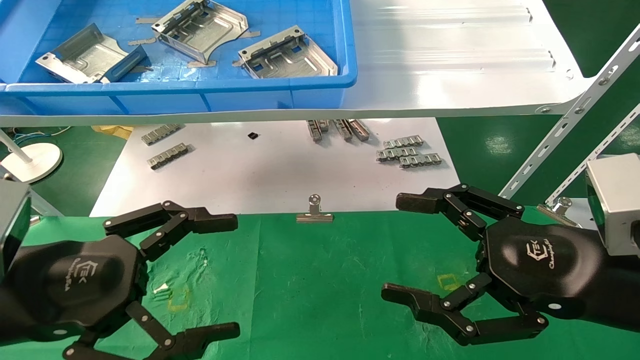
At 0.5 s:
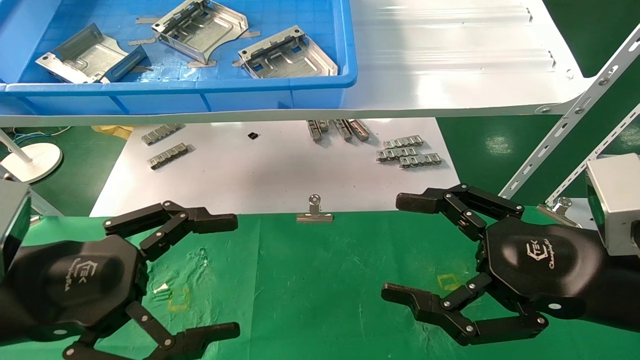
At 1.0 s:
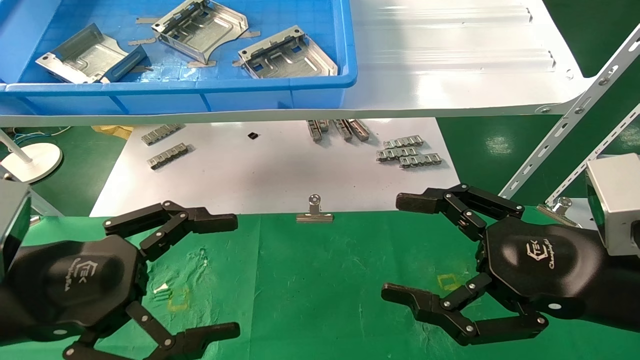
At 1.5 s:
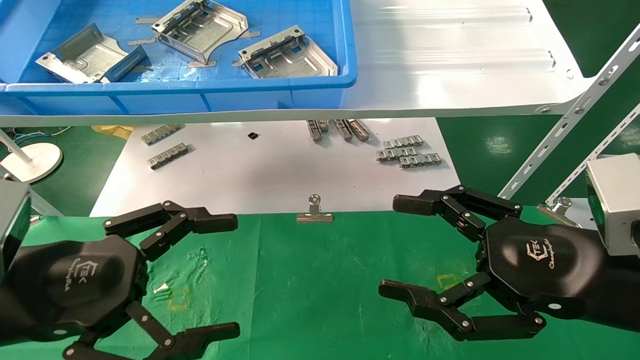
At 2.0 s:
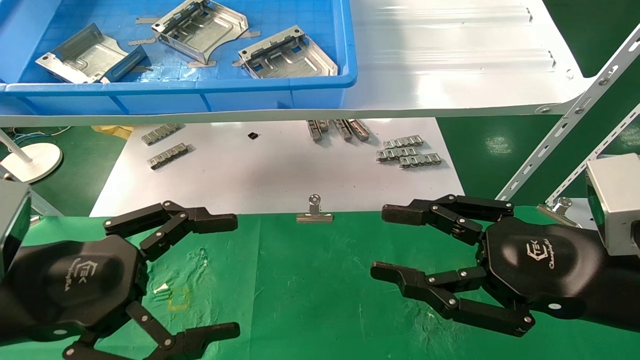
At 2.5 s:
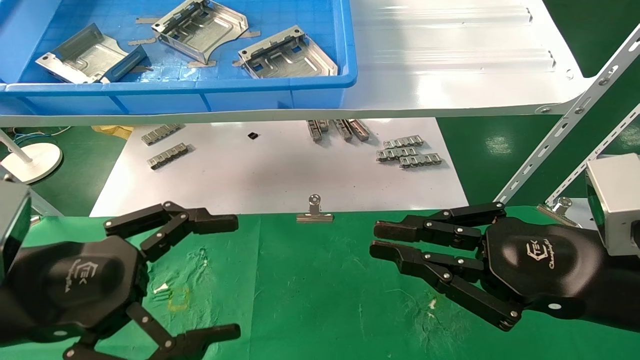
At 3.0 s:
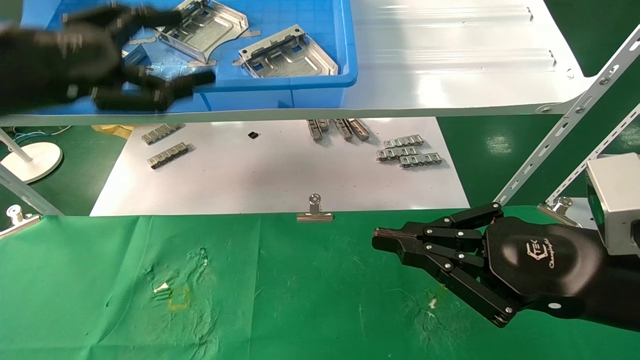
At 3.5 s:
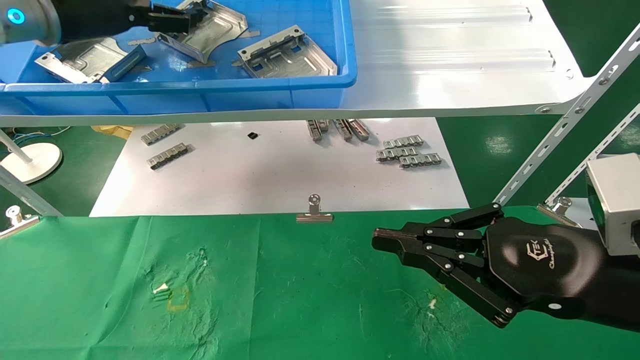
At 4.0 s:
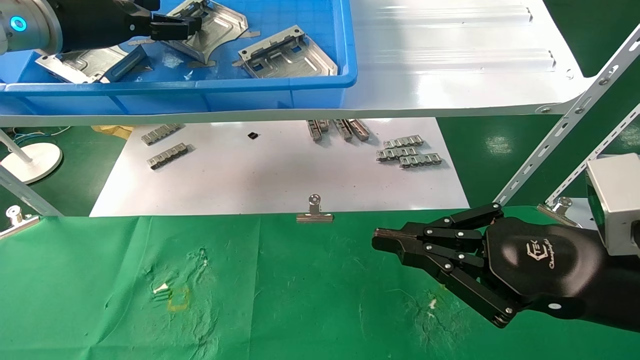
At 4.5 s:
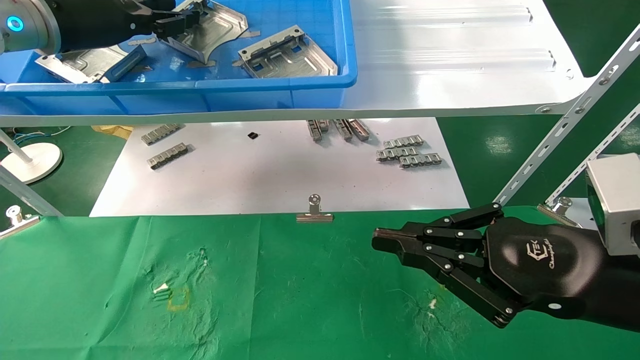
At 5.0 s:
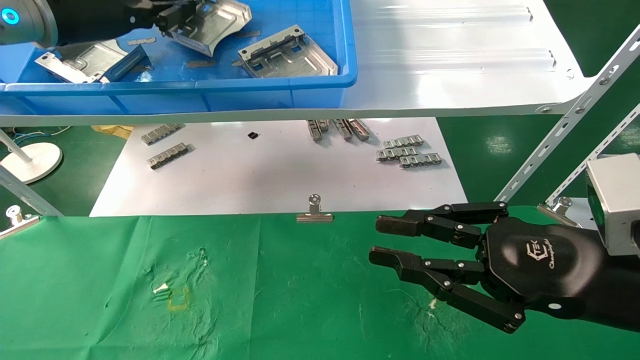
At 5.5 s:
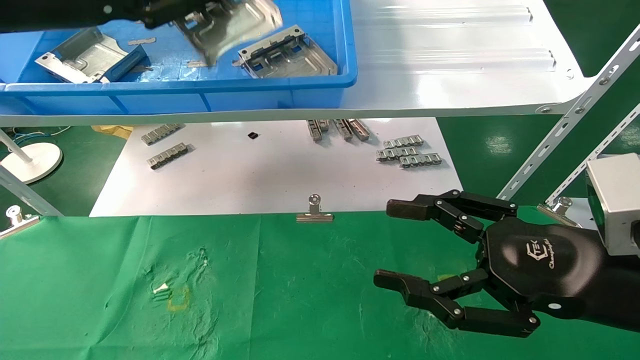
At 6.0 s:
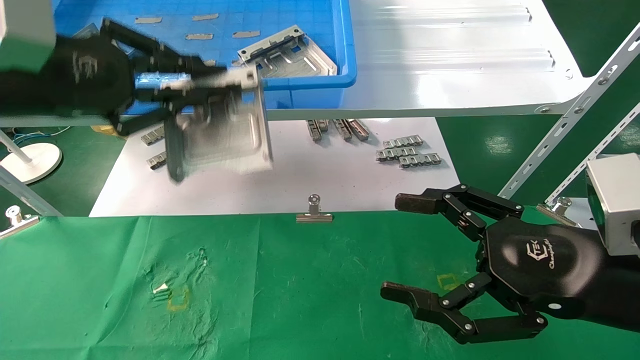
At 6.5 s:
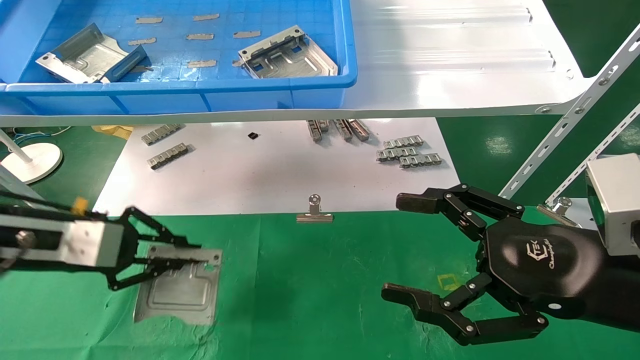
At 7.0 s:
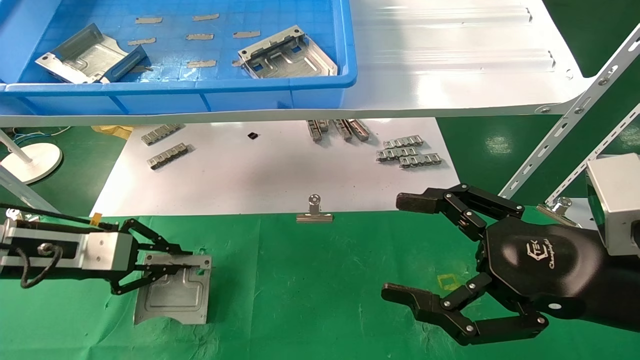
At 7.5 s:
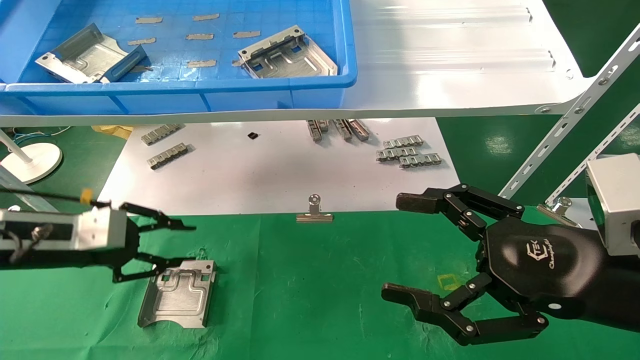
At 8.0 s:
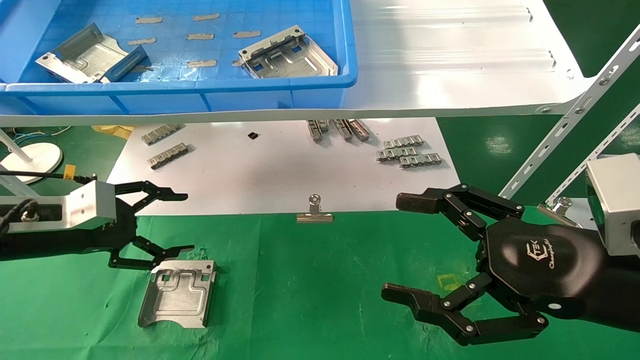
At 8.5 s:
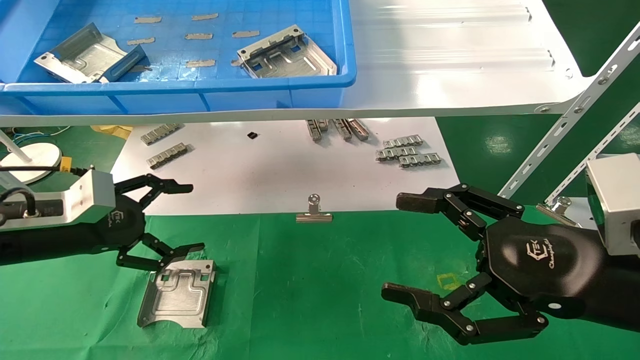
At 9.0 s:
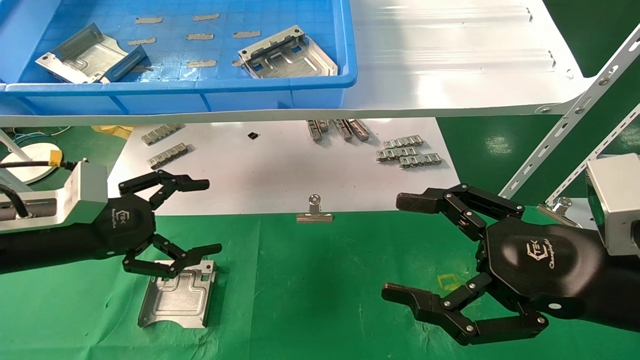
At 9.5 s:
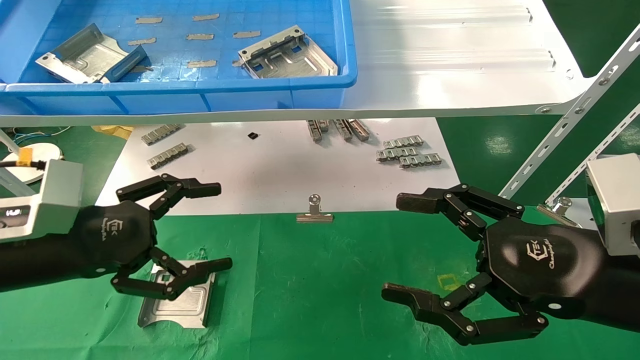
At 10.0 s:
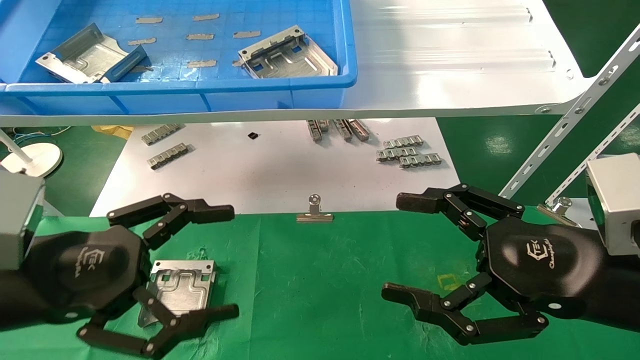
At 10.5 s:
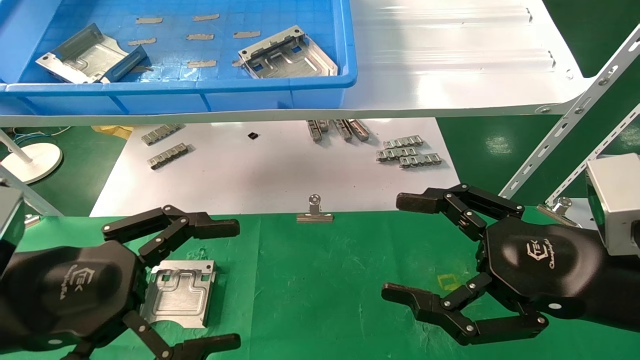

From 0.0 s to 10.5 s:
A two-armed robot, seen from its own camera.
Task of the whole recording: use the mechanical arm to pick up the parts and place them on the table.
Step, from 3.0 s to 4.5 s: Pick up the hard drive bracket from the feeding area.
Step, from 5.0 s to 7.0 s: Place the hard drive bracket into the box.
From 0.0 s to 2.0 s: The right gripper closes.
From 2.0 s to 4.0 s: The left gripper shifts approximately 30 cm forward and upward, while the right gripper closes its fingers.
From 4.0 s to 6.5 s: The left gripper is displaced downward and backward by about 20 cm, and closes. The right gripper opens.
From 6.5 s to 8.5 s: The left gripper opens.
From 8.5 s to 10.5 s: The left gripper travels backward and to the right by approximately 15 cm.

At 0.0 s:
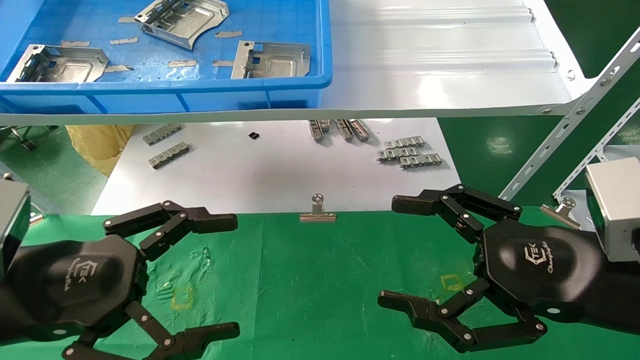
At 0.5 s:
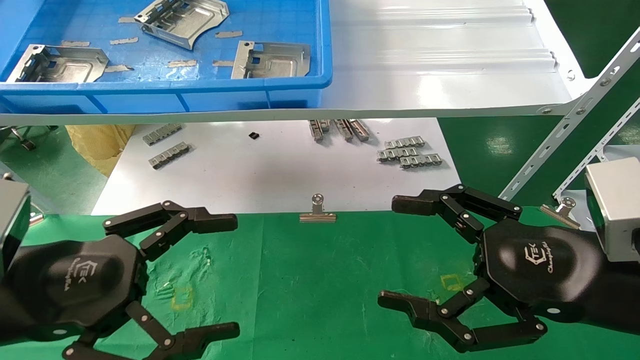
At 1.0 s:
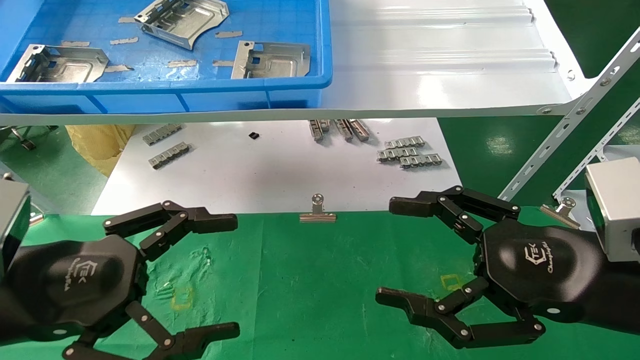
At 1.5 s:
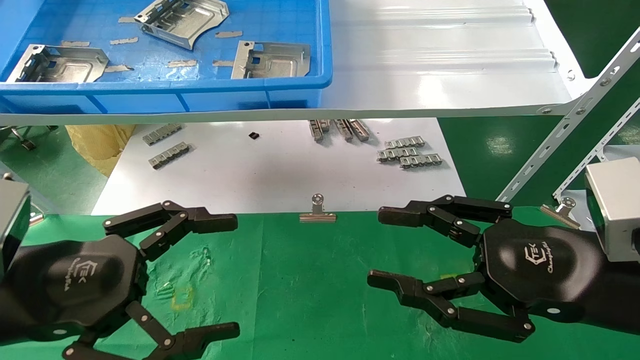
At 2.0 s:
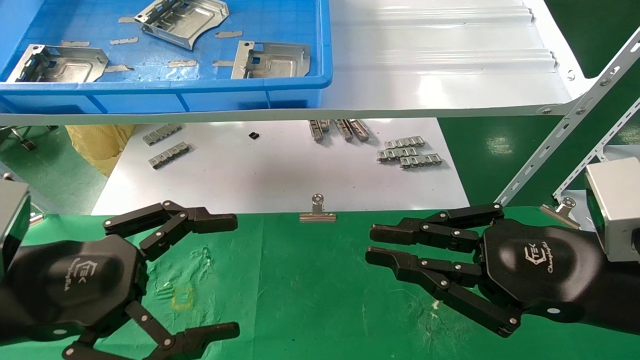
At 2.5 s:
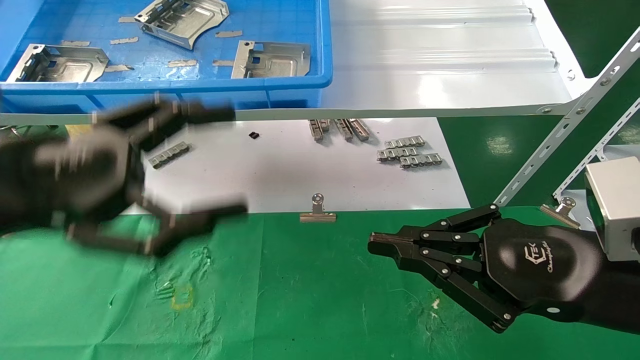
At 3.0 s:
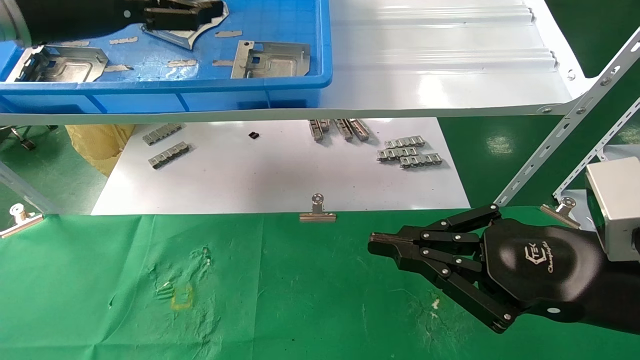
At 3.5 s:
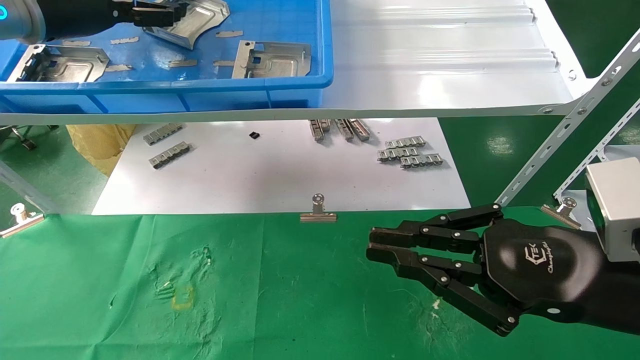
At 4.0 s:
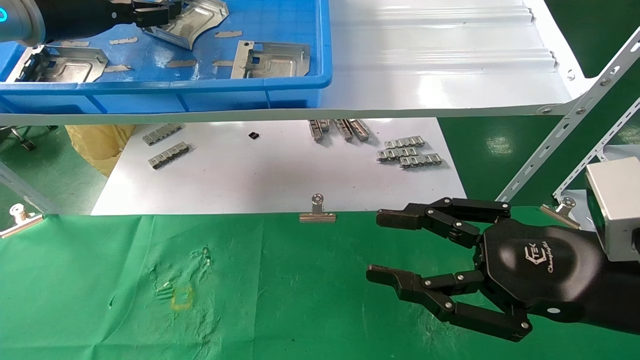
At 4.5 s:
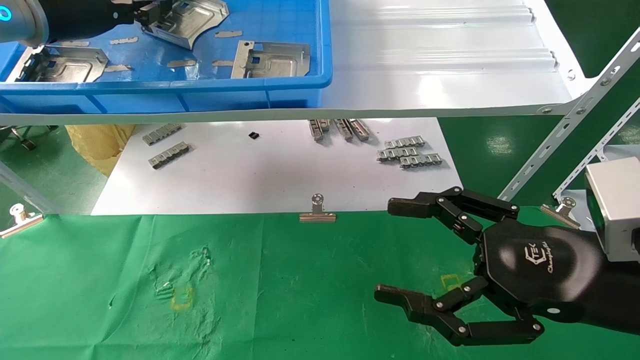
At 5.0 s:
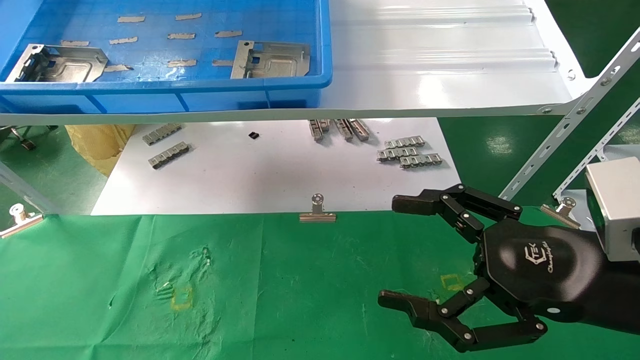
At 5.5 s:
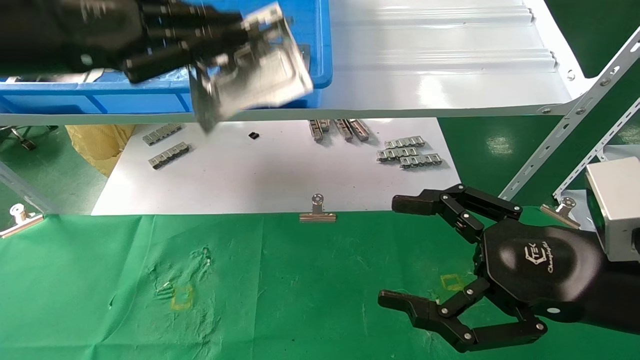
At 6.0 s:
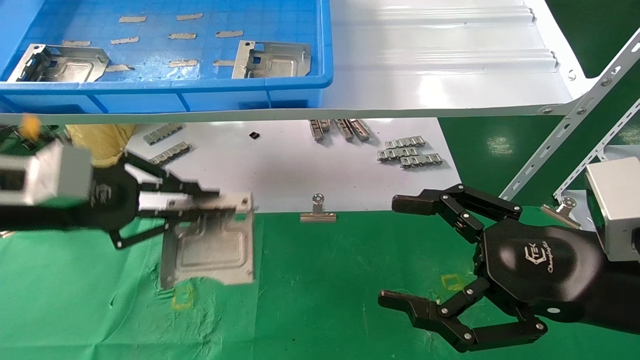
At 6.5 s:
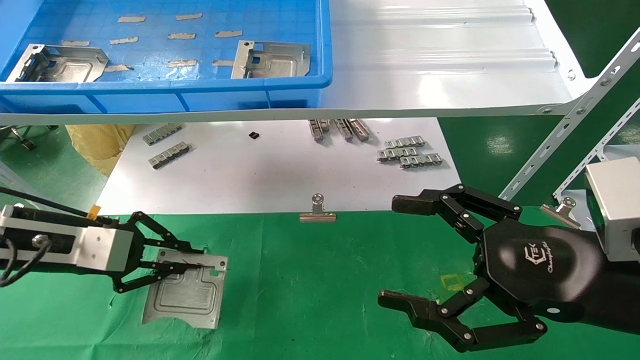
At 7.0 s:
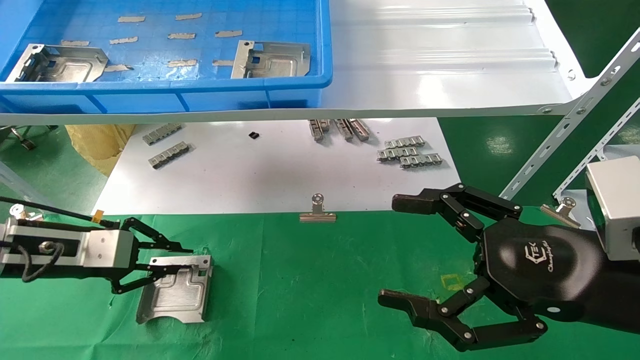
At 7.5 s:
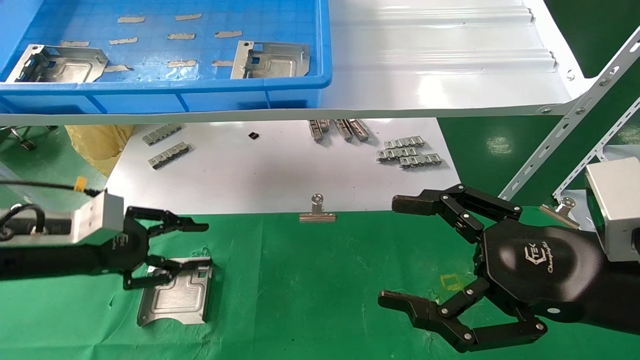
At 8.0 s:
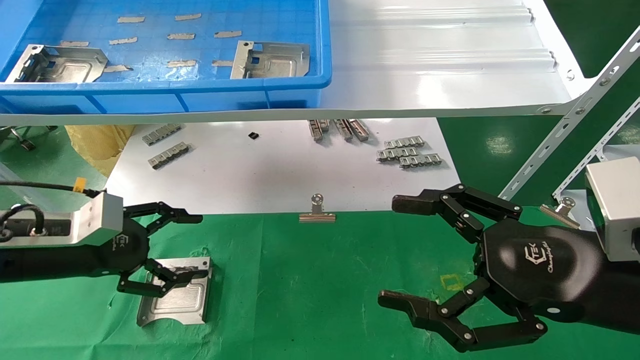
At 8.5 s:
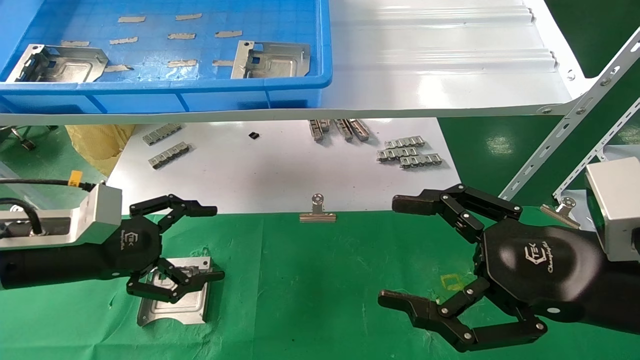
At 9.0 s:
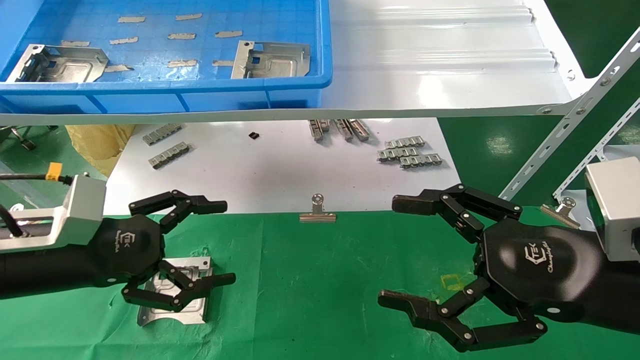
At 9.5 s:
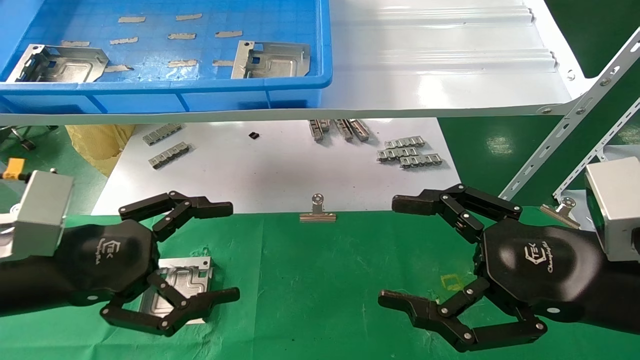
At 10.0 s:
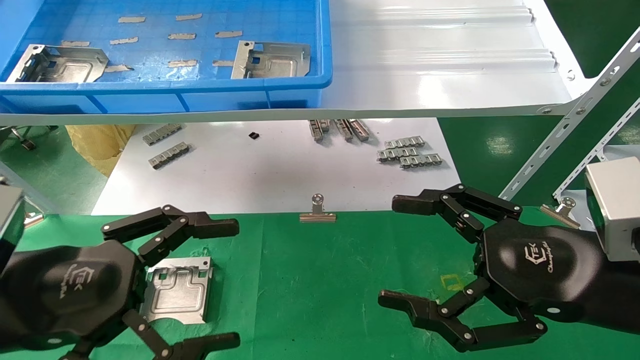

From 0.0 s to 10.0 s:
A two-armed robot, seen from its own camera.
Task of the whole recording: use the mechanical arm to pick up the parts and place them on the table.
Step, from 3.0 s to 4.5 s: Pick up the hard drive bracket from the feeding area.
Step, from 5.0 s to 7.0 s: Place the hard drive bracket into the box.
From 0.0 s to 2.0 s: The right gripper closes.
From 2.0 s to 4.0 s: The left gripper is displaced upward and forward by approximately 30 cm.
From 4.0 s to 6.0 s: The right gripper opens; the left gripper shifts approximately 20 cm downward and backward, and closes its fingers.
From 6.0 s to 8.0 s: The left gripper travels downward by roughly 10 cm, and opens its fingers.
From 8.0 s to 10.0 s: The left gripper shifts about 15 cm backward and to the right.
